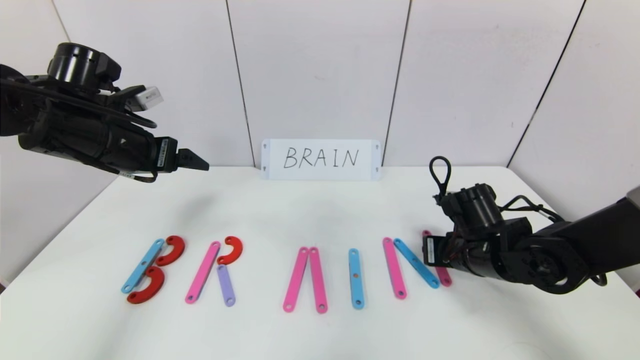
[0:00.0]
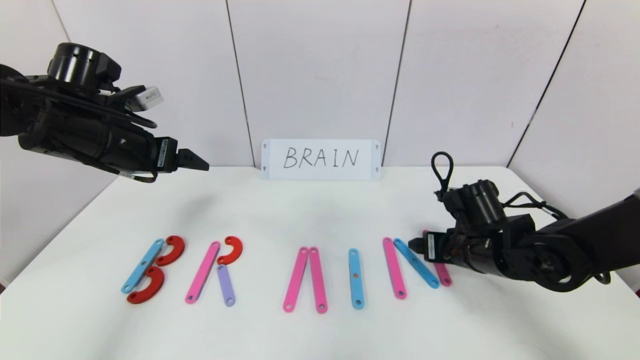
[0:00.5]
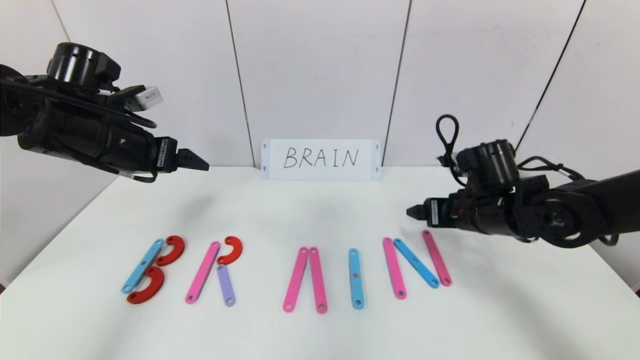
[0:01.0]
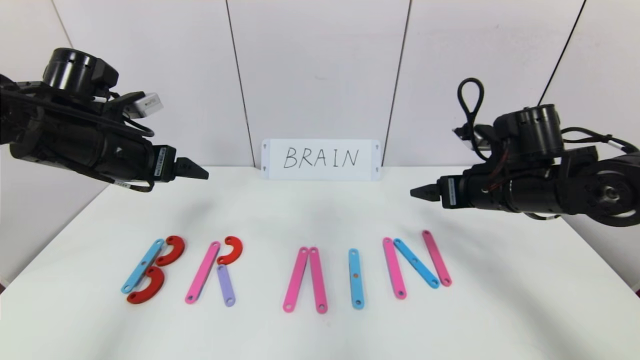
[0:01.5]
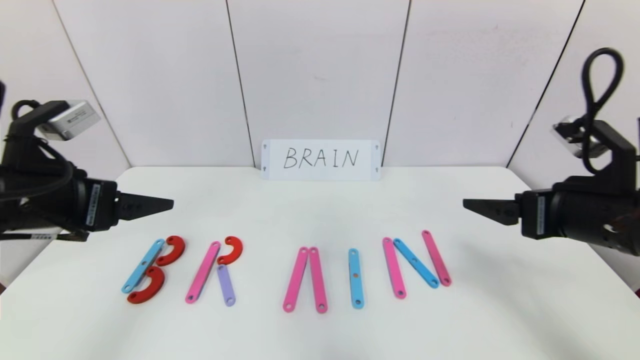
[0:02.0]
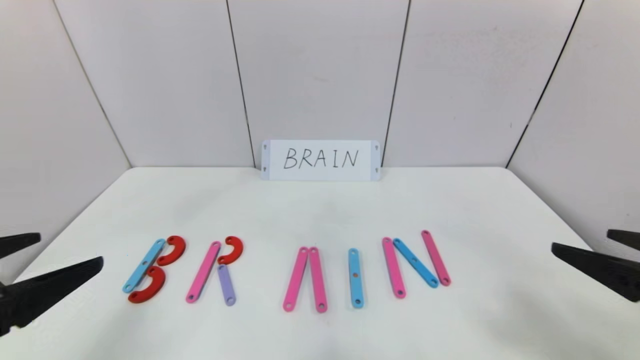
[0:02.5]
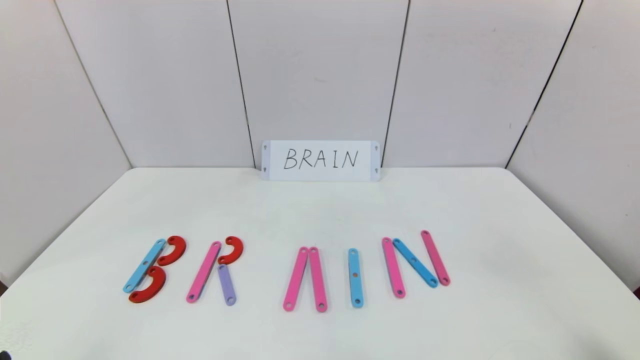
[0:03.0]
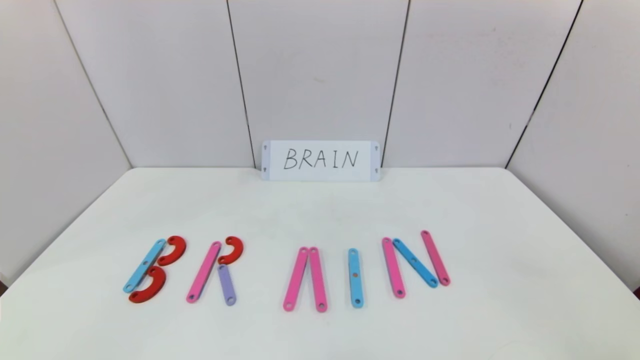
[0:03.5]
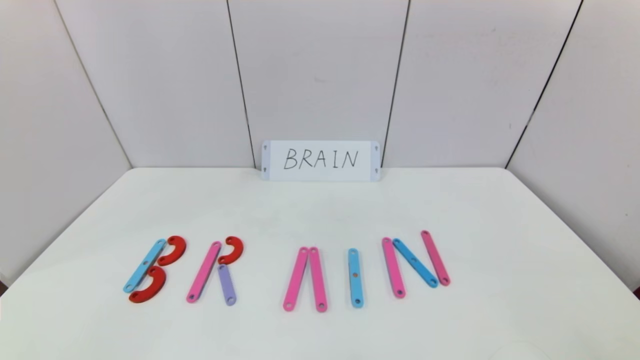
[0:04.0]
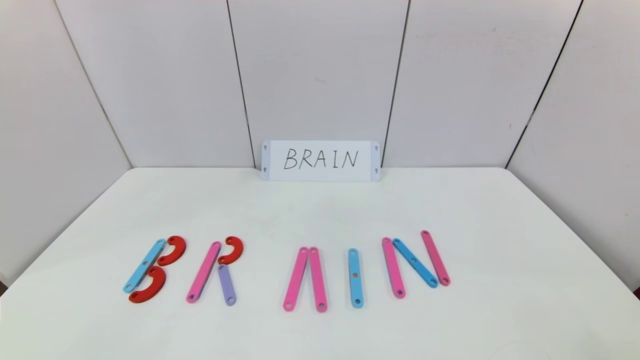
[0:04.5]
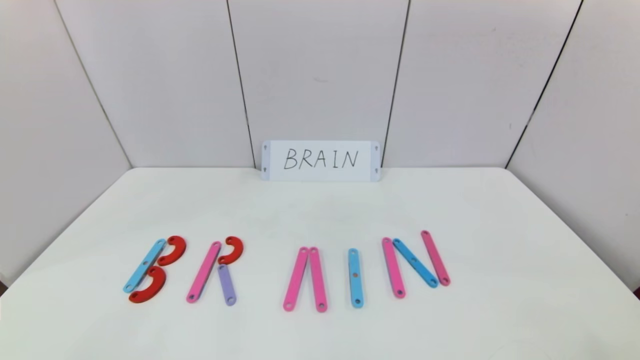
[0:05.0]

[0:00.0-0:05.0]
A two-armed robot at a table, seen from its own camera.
Task of the whole recording: rearrange the word baai as brain.
0:00.0 to 0:02.5: The right gripper is displaced backward, upward and to the right by roughly 25 cm, and opens its fingers. The left gripper heads backward, covering about 25 cm.
0:02.5 to 0:05.0: Both grippers travel together downward and backward, approximately 20 cm.

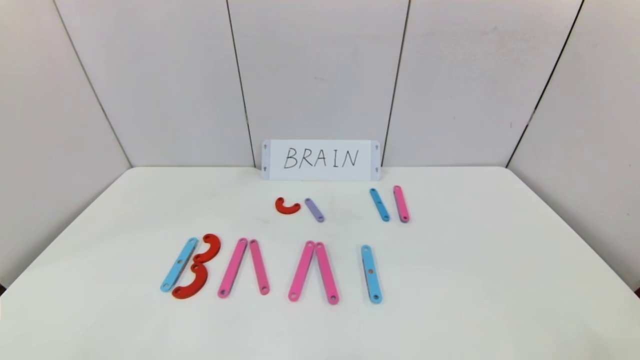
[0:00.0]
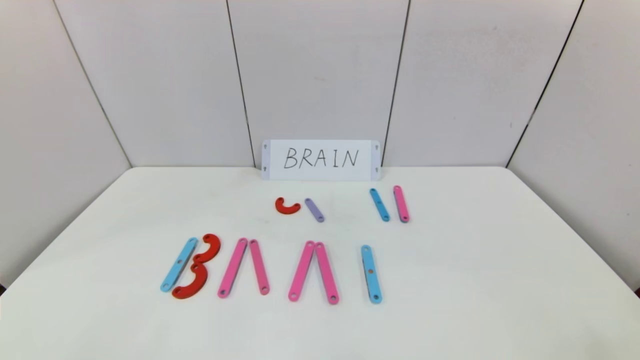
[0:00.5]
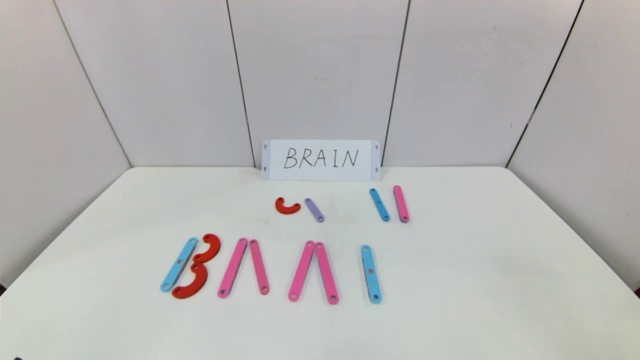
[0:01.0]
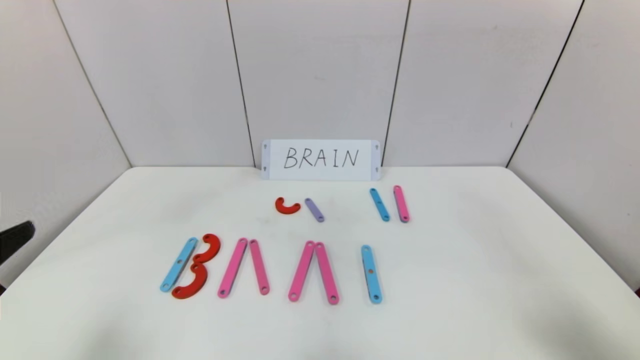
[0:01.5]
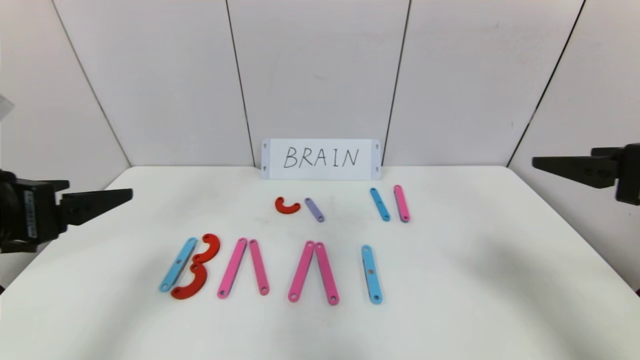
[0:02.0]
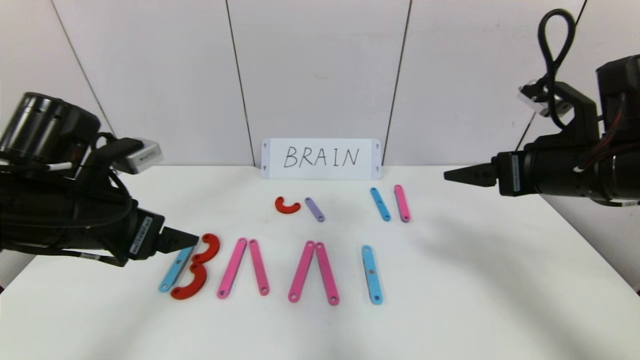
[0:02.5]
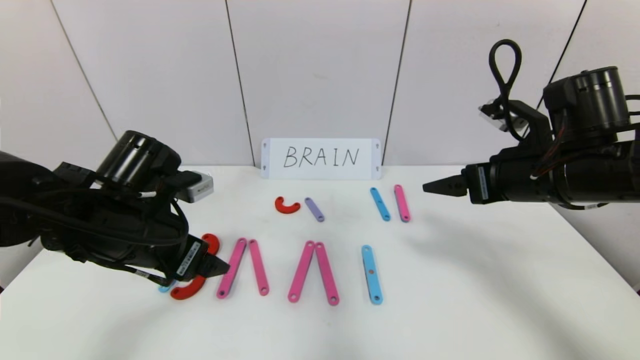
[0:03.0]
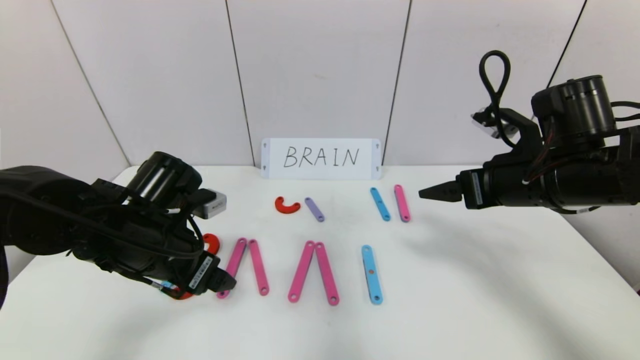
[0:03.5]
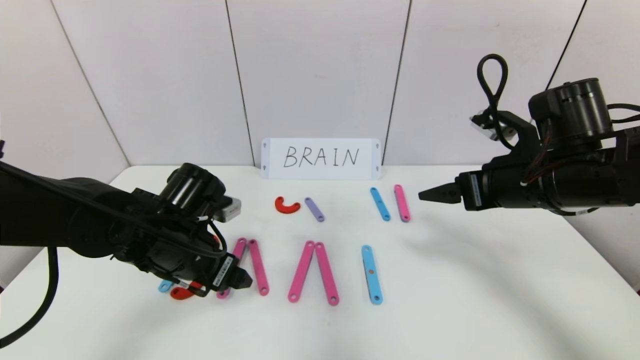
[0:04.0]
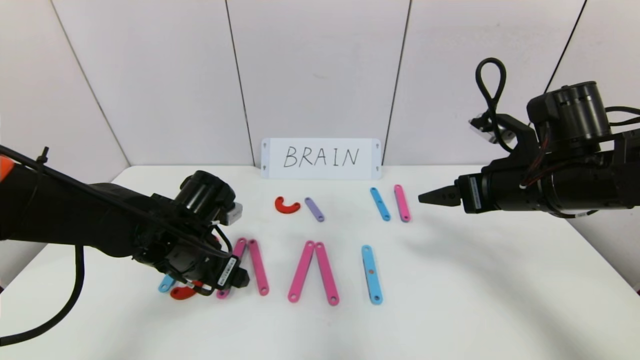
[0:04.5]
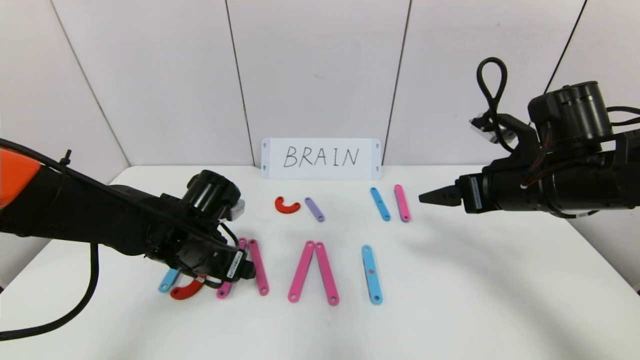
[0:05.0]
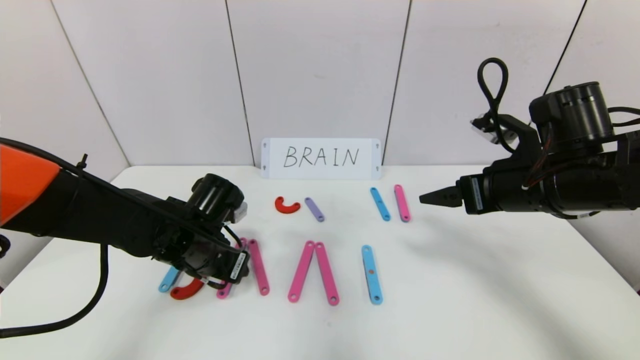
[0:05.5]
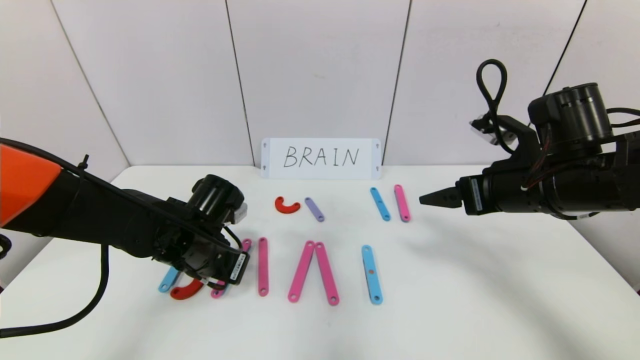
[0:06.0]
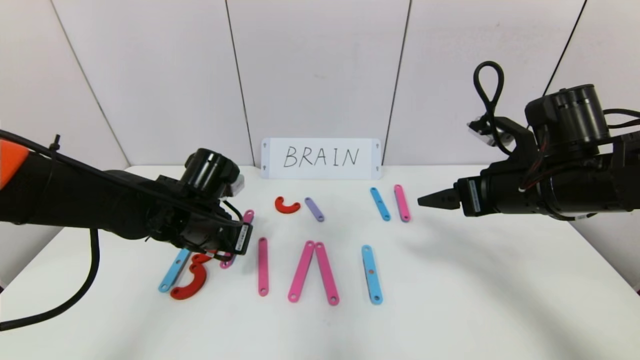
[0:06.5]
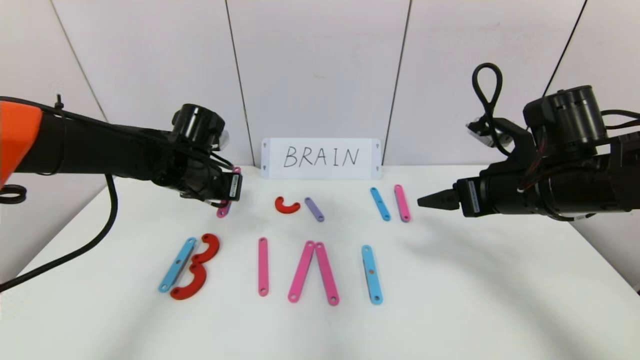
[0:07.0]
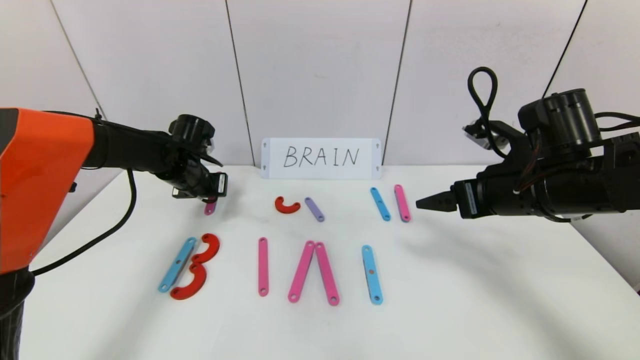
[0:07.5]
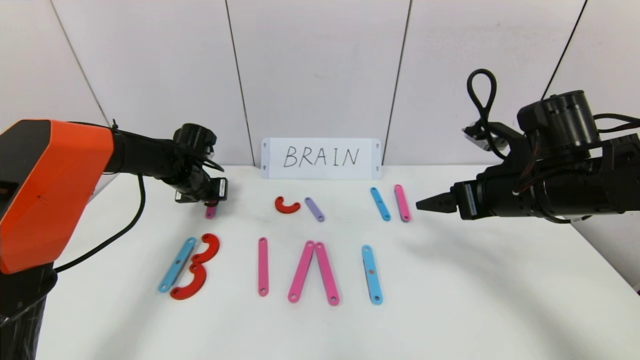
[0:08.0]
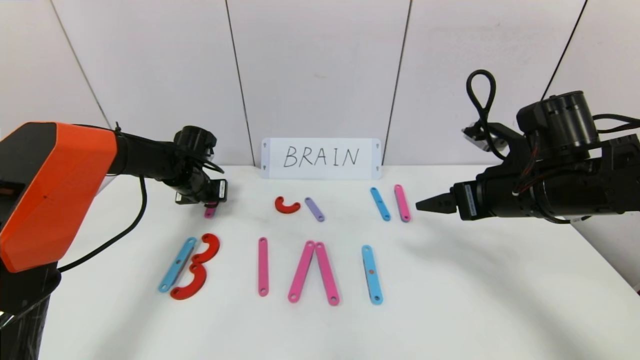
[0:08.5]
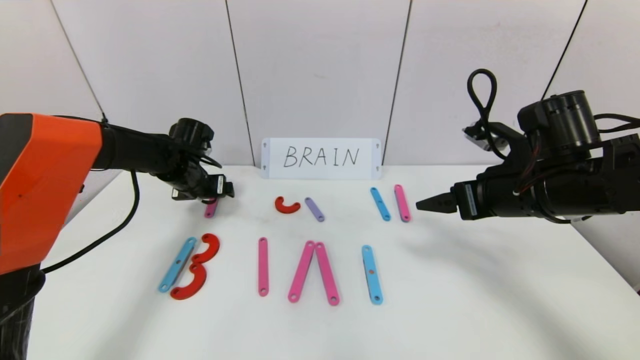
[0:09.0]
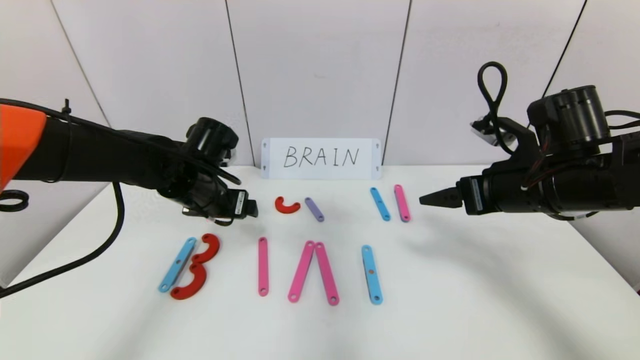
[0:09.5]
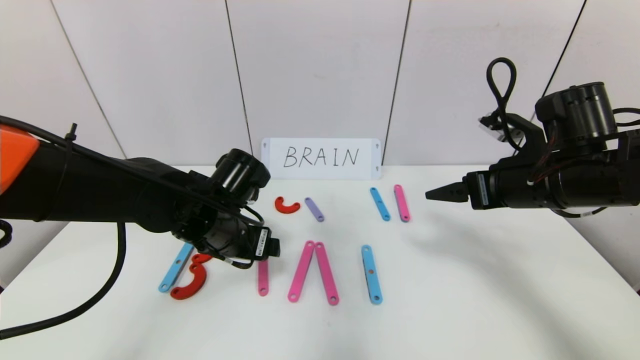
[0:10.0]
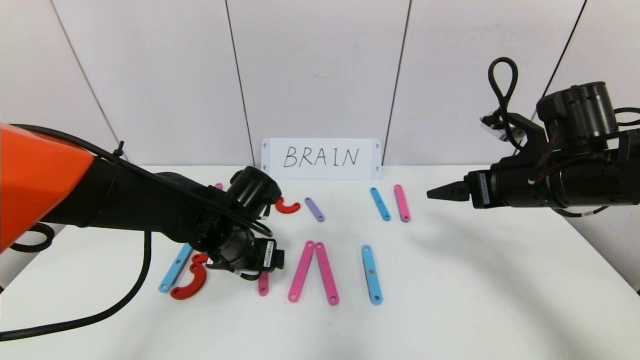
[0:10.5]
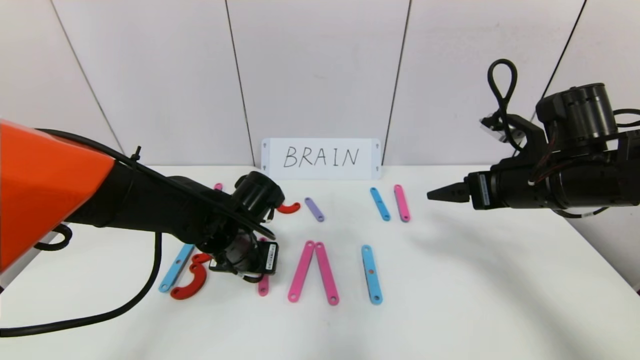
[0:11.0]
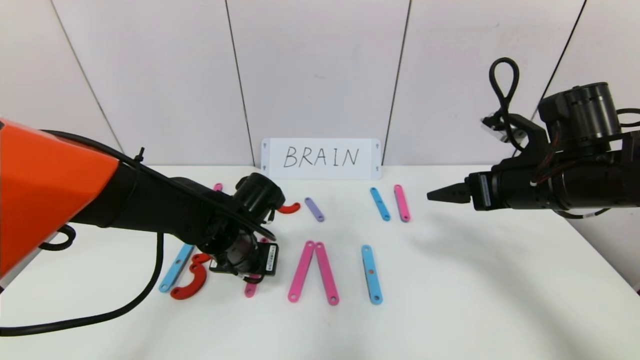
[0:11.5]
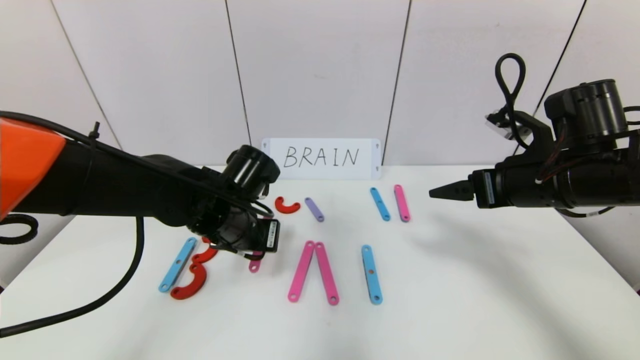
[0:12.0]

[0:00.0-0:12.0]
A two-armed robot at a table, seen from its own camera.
Task of the whole recording: rearrange the word baai as brain.
0:00.0 to 0:02.0: Both grippers move upward and forward, about 25 cm.
0:02.0 to 0:04.0: The left gripper travels downward, forward and to the right by approximately 20 cm; the right gripper is displaced forward, downward and to the left by some 15 cm.
0:04.0 to 0:06.0: The left gripper closes up.
0:06.0 to 0:08.0: The left gripper travels forward and to the left by roughly 20 cm.
0:08.0 to 0:10.0: The left gripper shifts approximately 20 cm backward and to the right, and opens.
0:10.0 to 0:12.0: The left gripper closes up.

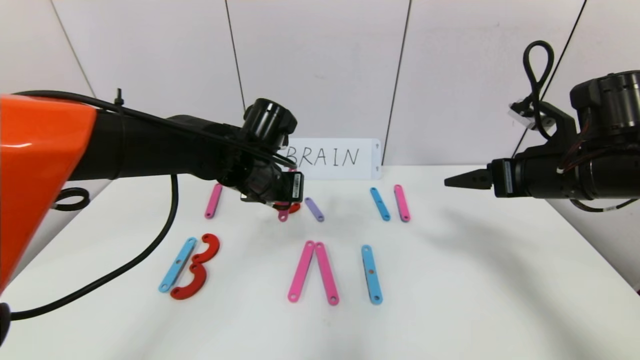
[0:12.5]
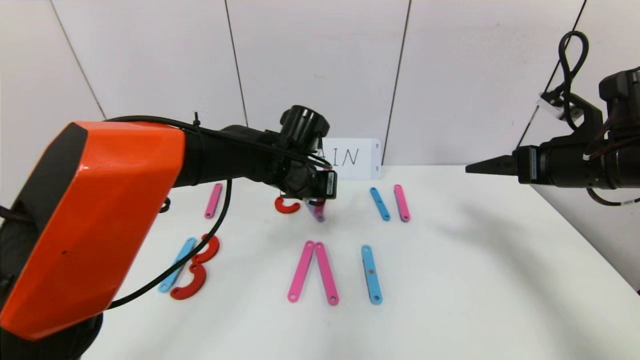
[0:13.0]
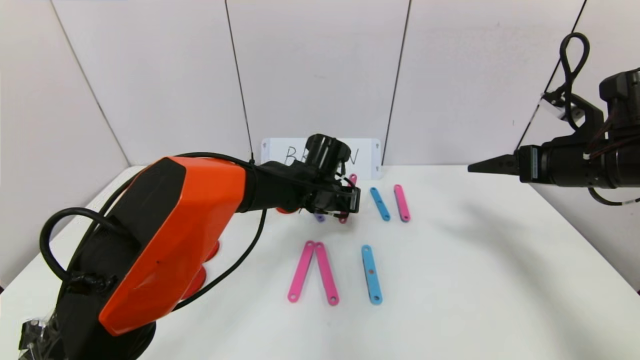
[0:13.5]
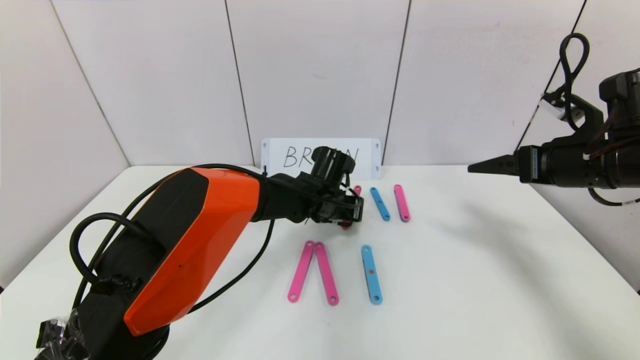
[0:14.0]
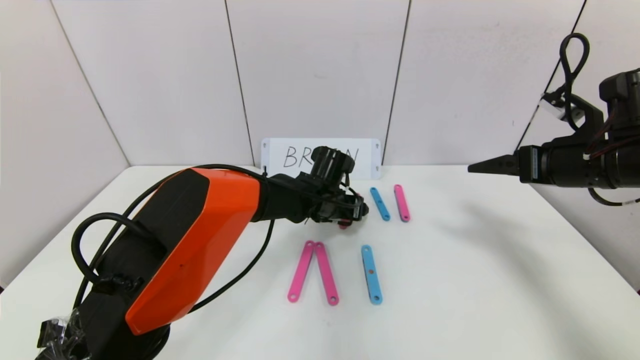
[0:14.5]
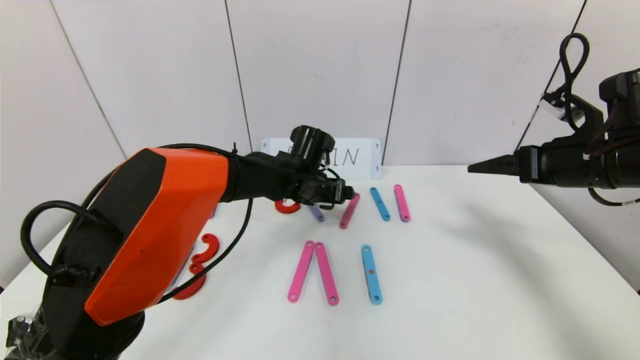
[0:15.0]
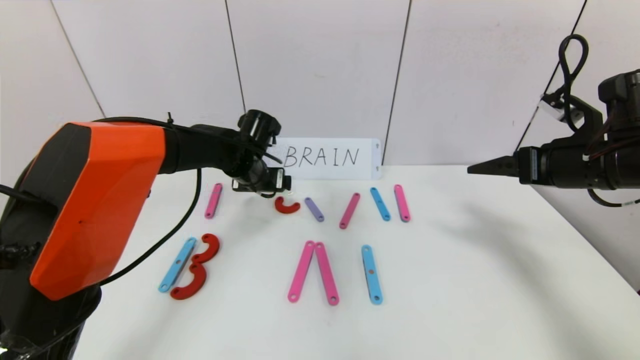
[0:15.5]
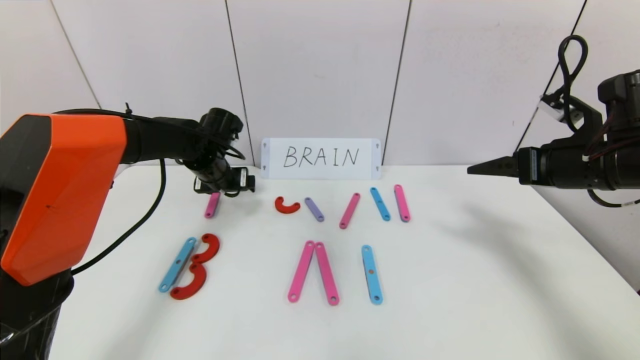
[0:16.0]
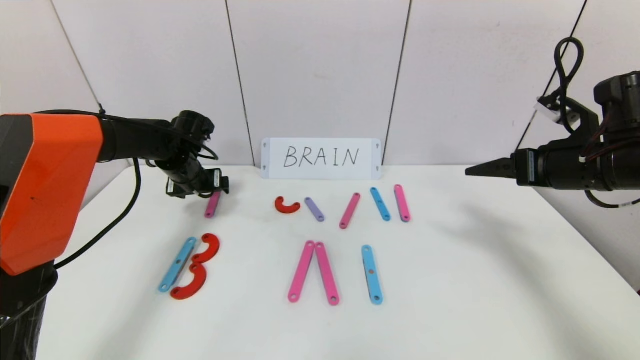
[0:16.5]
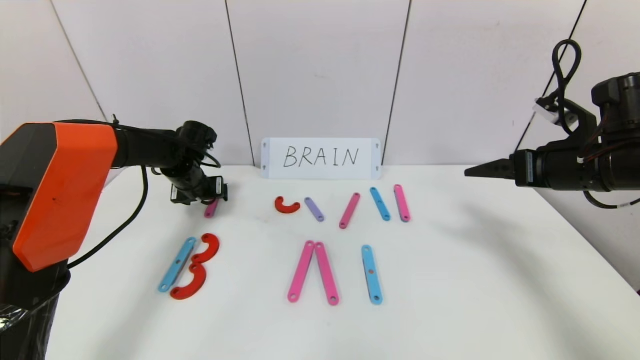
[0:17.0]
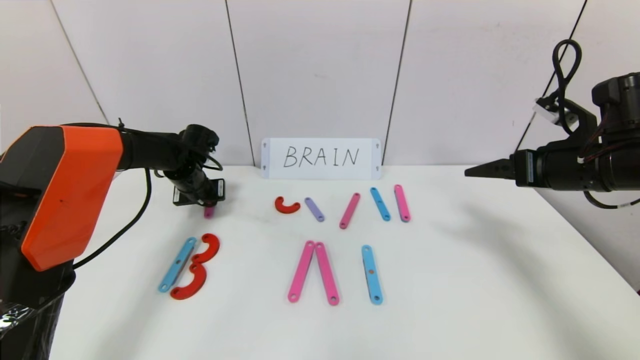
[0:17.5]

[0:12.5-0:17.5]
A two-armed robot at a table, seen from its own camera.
Task of the whole recording: rearrange the word baai as brain.
Step, 0:12.5 to 0:14.5: Disassemble the second character A.
0:12.5 to 0:15.0: The left gripper moves forward, to the right and downward, approximately 10 cm, and opens.
0:15.0 to 0:17.5: The left gripper travels to the left by approximately 25 cm, and closes up.
